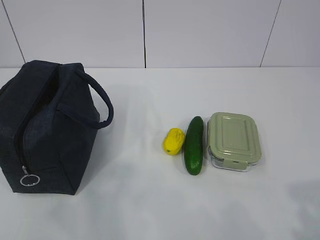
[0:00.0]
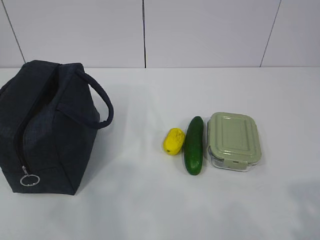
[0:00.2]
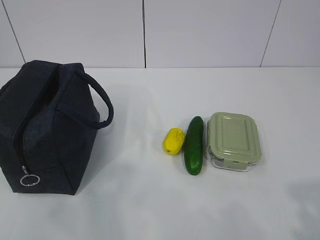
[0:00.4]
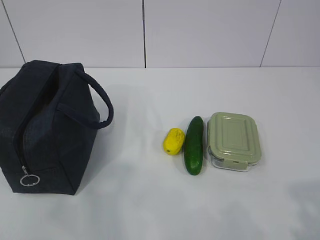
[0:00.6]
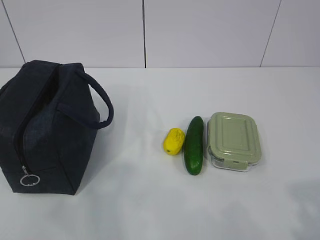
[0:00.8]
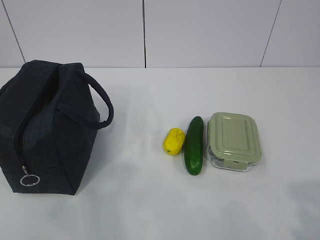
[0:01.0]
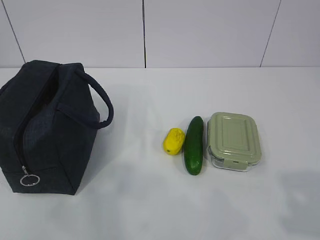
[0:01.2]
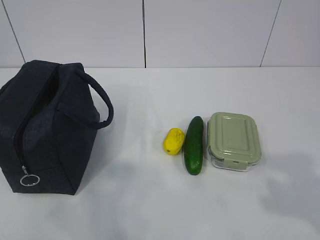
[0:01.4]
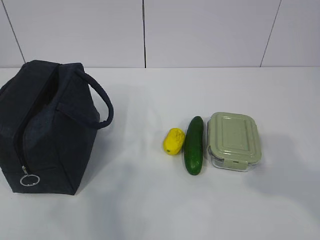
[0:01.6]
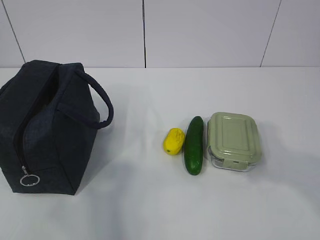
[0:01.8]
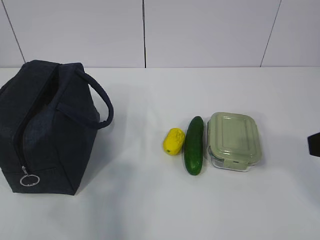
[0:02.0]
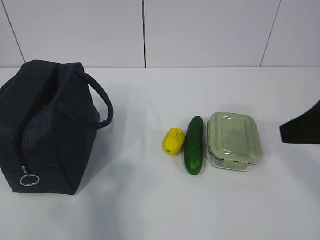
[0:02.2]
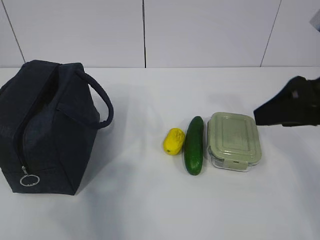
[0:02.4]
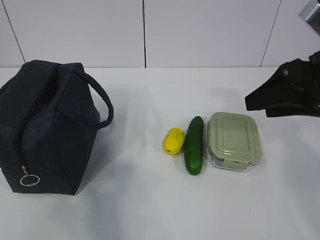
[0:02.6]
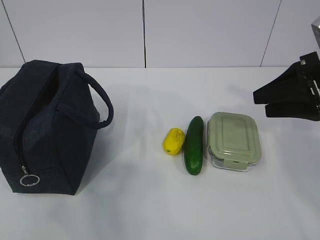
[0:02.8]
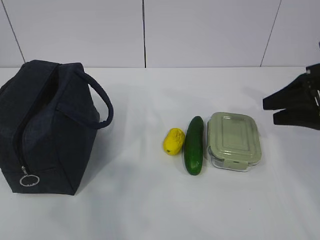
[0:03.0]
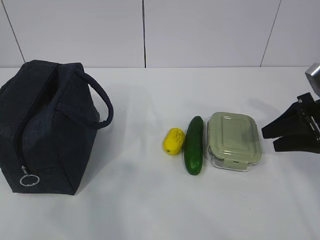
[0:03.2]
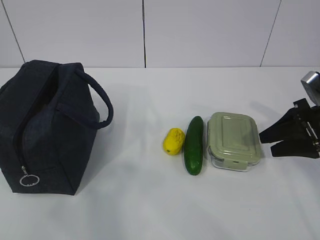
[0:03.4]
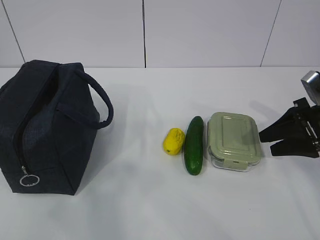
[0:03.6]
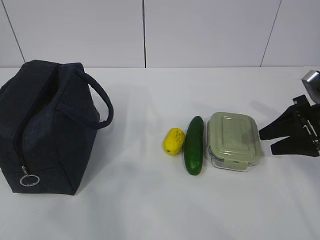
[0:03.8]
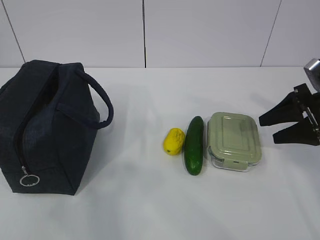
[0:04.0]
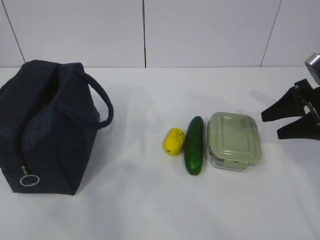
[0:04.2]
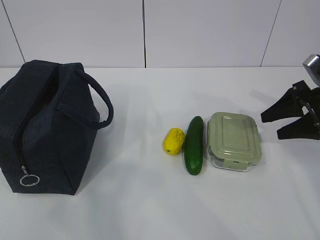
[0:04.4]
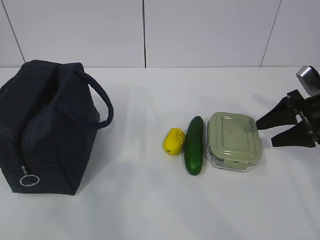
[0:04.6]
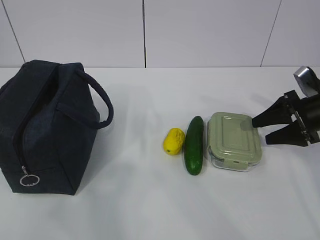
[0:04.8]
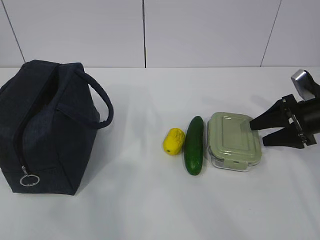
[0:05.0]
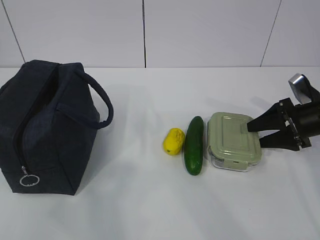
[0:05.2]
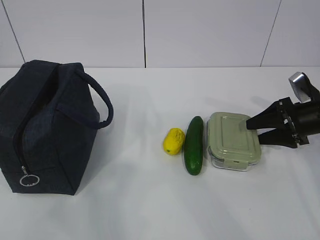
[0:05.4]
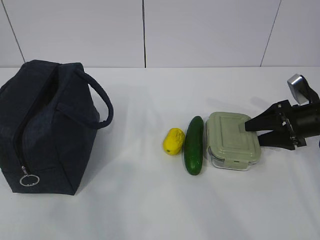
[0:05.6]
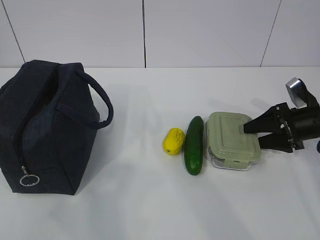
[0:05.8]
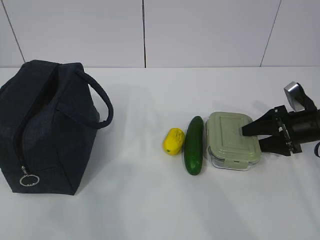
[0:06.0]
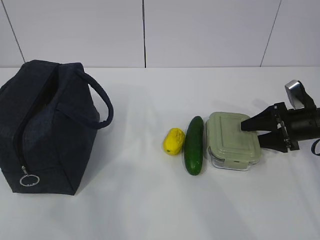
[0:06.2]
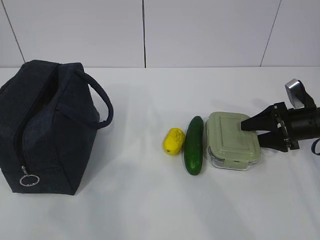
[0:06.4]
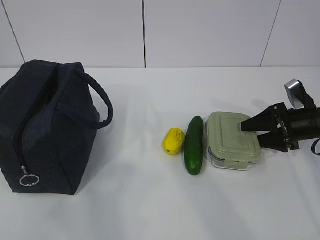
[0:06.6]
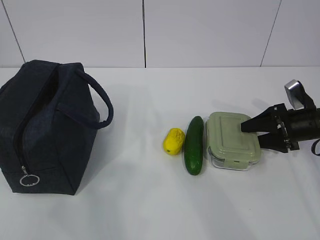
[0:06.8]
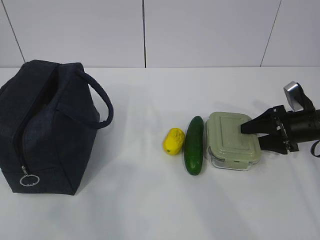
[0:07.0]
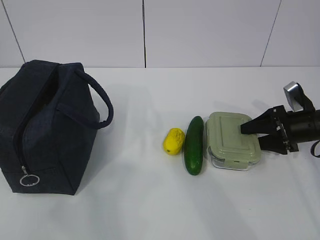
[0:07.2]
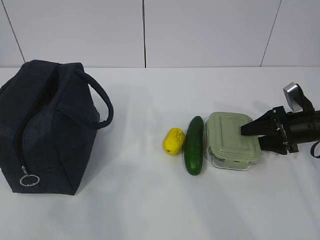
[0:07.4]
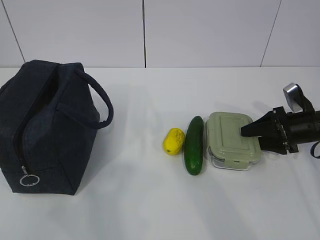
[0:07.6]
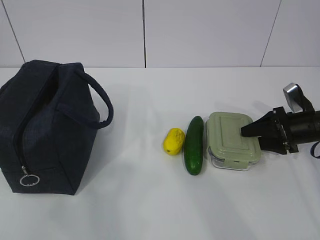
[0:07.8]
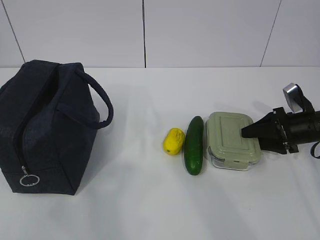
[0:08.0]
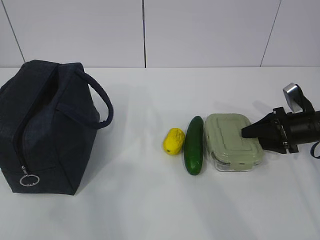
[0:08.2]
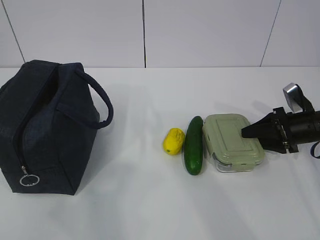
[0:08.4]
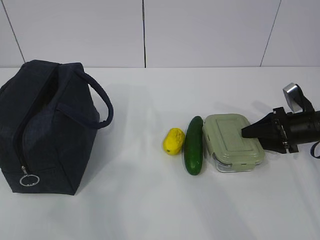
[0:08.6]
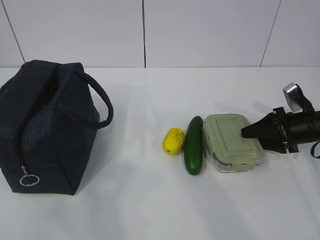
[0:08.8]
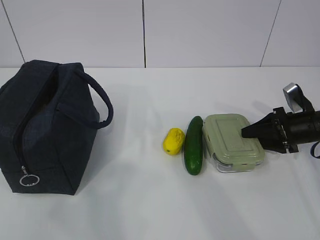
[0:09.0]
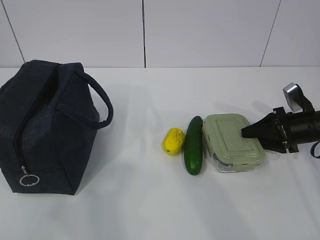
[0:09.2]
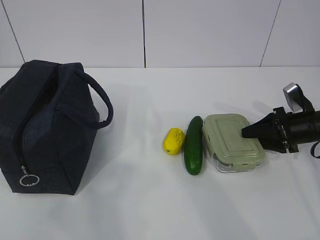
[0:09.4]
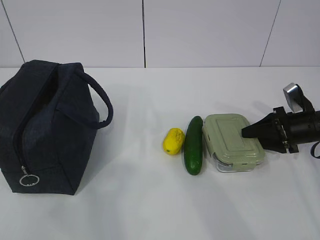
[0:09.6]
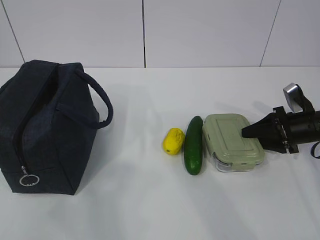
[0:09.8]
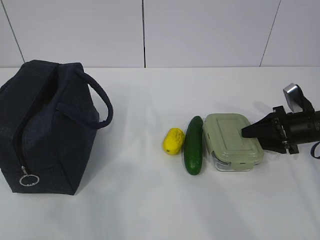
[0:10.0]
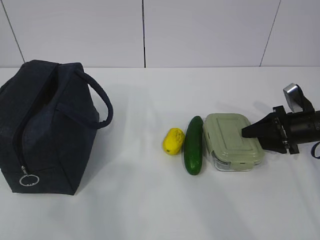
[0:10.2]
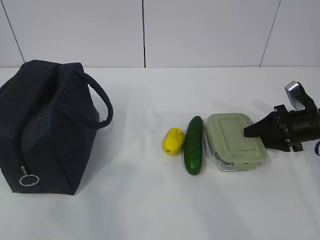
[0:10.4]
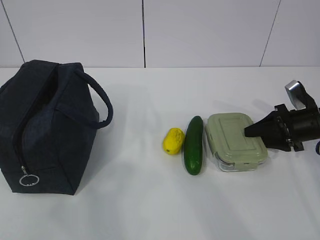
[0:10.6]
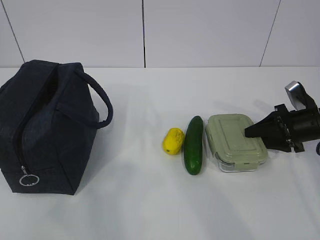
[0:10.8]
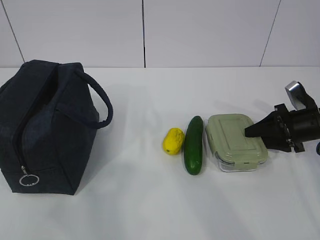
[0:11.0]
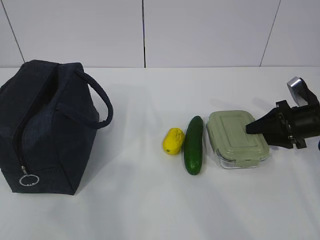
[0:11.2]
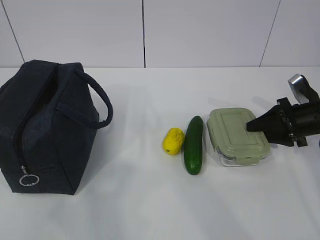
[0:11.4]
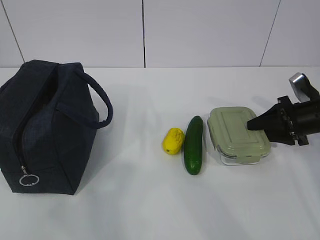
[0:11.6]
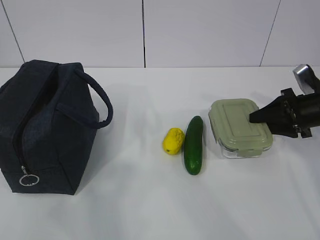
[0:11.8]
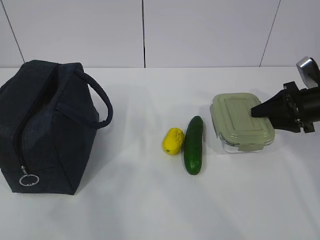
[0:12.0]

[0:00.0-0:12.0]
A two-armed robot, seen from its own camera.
Step, 0:00.0 to 0:09.0: Grab the lunch box with your right hand.
0:01.6 to 0:03.0: The right gripper goes roughly 25 cm forward.
0:03.0 to 0:04.4: The right gripper moves approximately 5 cm.
0:04.4 to 0:06.0: The right gripper is displaced downward by some 10 cm.
0:06.0 to 0:10.4: Both grippers stay about where they are.
0:10.4 to 0:12.0: The right gripper heads upward, covering roughly 5 cm.

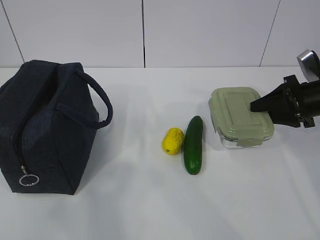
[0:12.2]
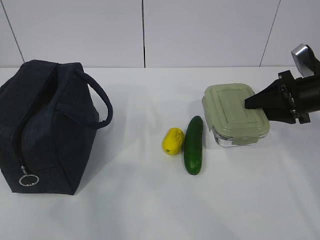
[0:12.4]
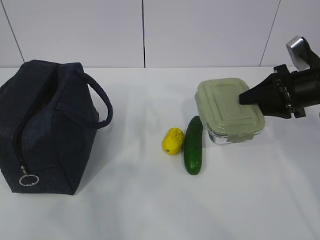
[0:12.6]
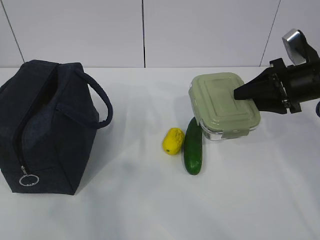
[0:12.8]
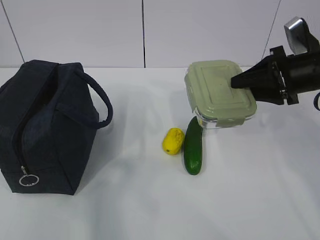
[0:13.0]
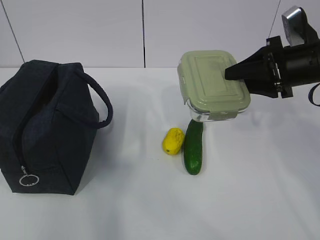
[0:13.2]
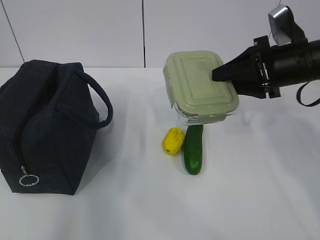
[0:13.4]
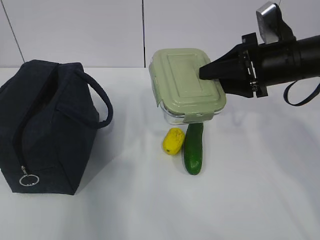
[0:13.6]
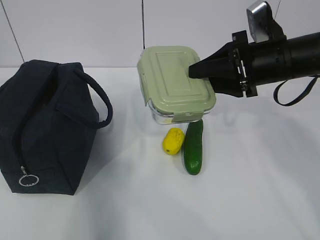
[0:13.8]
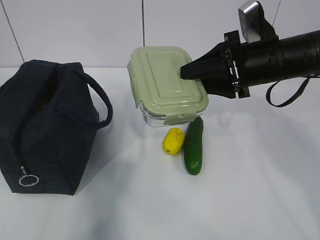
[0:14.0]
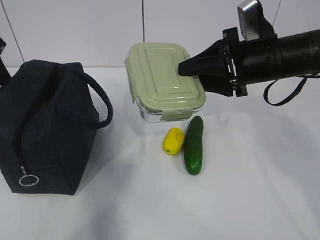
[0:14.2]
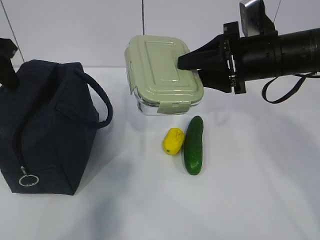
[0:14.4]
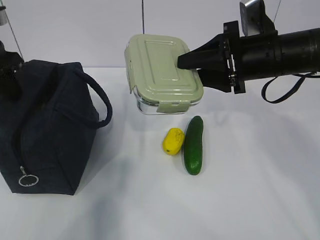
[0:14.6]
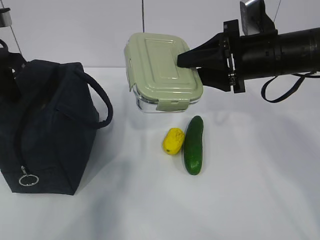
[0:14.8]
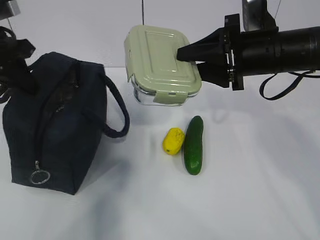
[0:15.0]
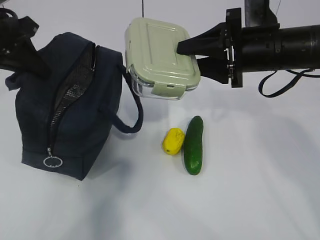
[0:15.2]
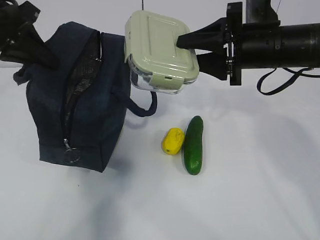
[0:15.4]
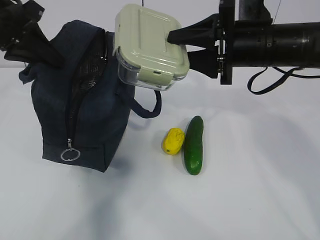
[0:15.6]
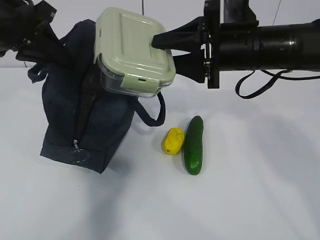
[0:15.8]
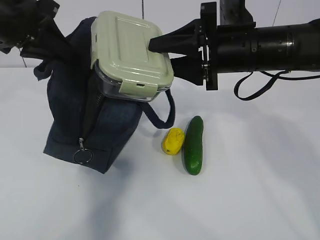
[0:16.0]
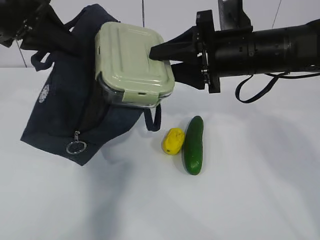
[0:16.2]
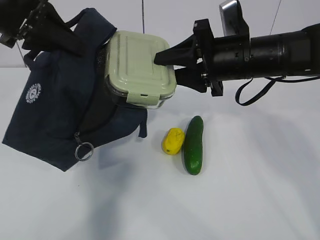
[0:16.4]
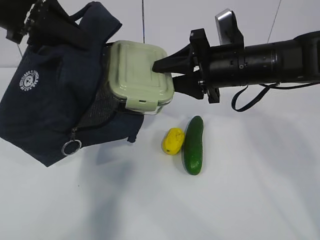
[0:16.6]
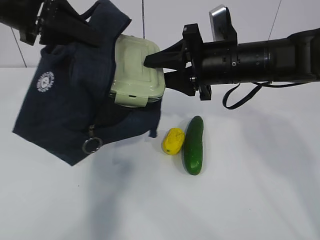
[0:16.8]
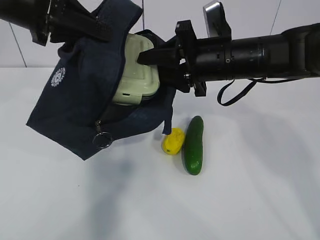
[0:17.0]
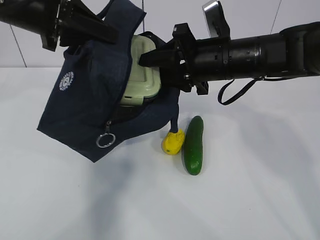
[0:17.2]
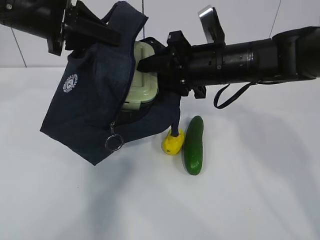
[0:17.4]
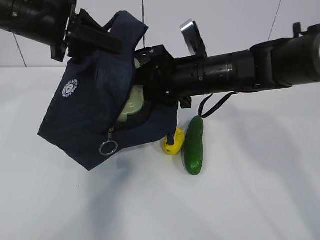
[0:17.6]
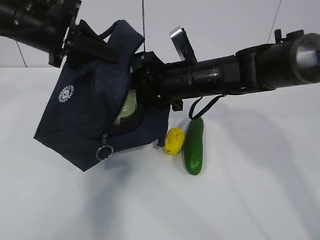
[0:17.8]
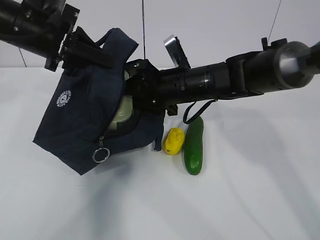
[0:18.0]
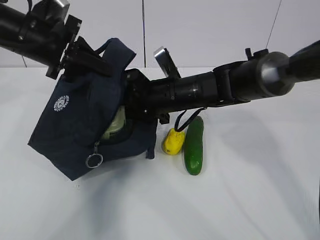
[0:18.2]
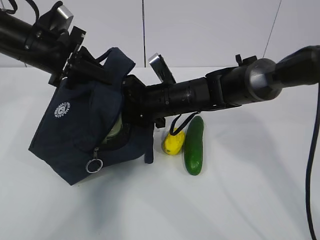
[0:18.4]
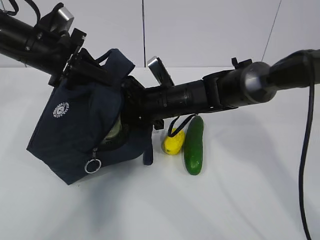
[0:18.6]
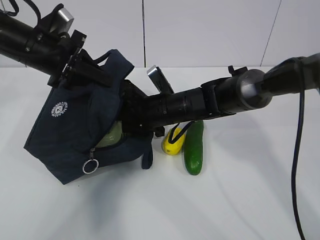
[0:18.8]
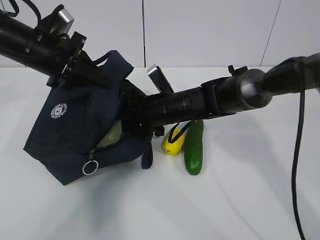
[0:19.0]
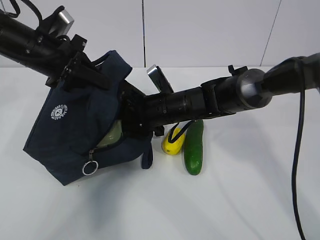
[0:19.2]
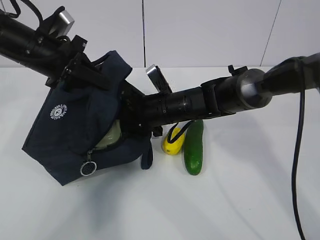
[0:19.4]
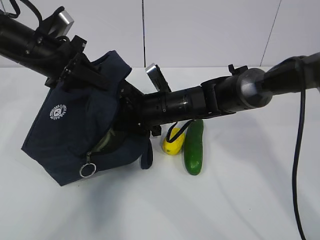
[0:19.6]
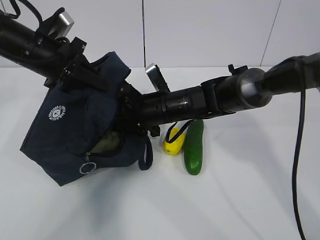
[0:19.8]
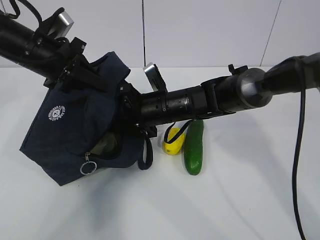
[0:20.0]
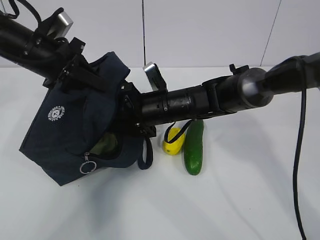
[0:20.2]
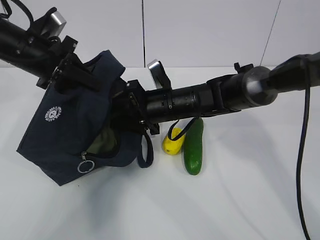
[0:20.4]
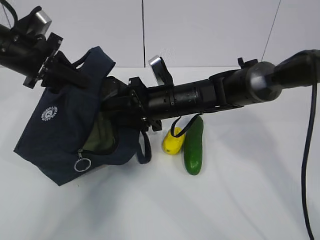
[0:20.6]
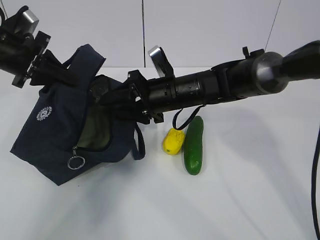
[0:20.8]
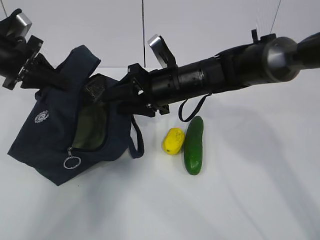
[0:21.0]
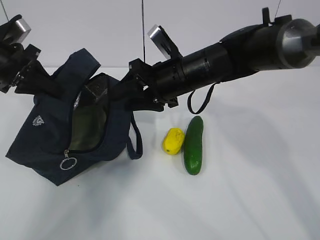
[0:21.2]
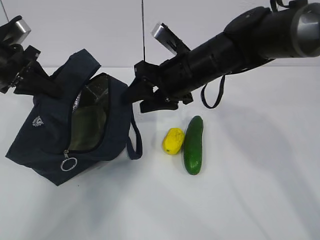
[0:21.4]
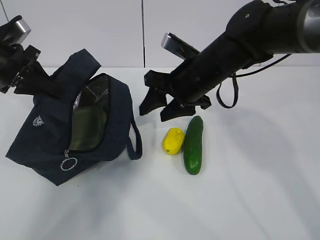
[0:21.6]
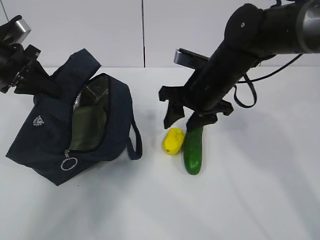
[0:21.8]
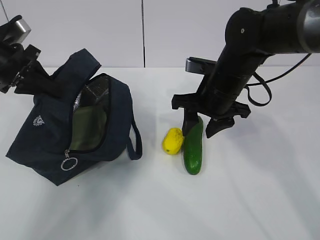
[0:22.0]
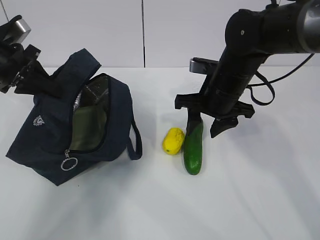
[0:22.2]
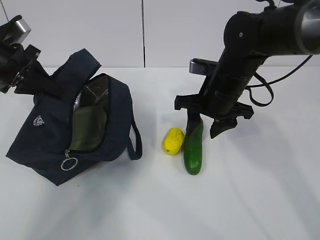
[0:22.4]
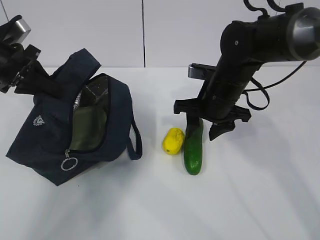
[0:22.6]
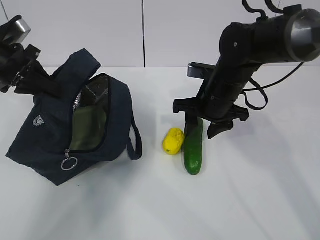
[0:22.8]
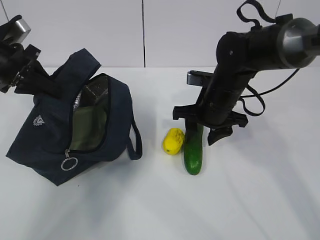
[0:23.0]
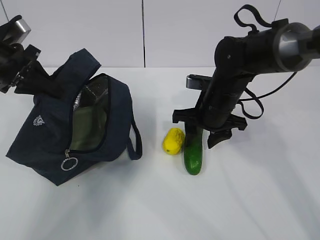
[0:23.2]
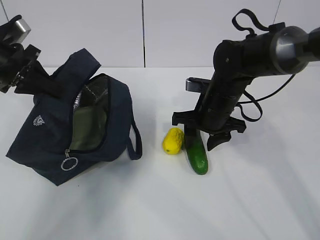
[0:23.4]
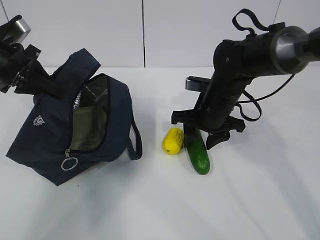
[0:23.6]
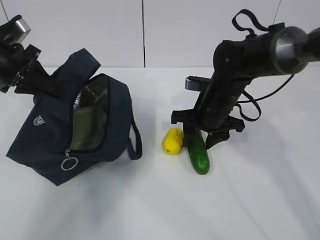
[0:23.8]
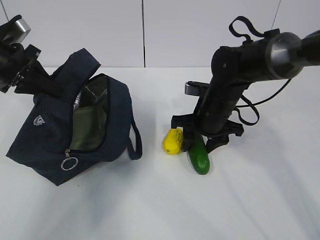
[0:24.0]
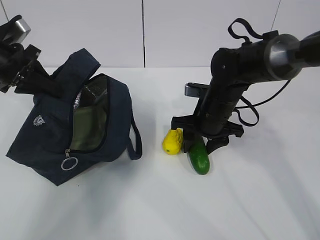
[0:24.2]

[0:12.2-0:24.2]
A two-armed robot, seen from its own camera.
Step, 0:13.4 to 0:16.4: Place it into the bag with your right hand.
Step, 0:16.8 to 0:20.6: Grab the cucumber with your right hand.
Step, 0:20.8 to 0:23.4: Place it into the bag with your right hand.
0:12.2 to 0:13.8: The right gripper heads to the left and upward, covering roughly 15 cm, while the left gripper goes roughly 25 cm forward.
0:13.8 to 0:15.2: The left gripper goes roughly 10 cm forward, and closes.
0:15.2 to 0:16.6: The left gripper changes place by approximately 5 cm.
0:16.6 to 0:18.2: The right gripper travels to the left and downward by about 10 cm. The left gripper is displaced downward and forward by roughly 10 cm.
0:18.2 to 0:19.8: The grippers make only small movements.
0:19.8 to 0:21.2: The right gripper travels upward by approximately 10 cm, while the left gripper travels to the left by about 10 cm.
0:21.2 to 0:22.6: The right gripper travels to the right by roughly 5 cm.
0:22.6 to 0:24.2: The grippers stay close to where they were, moving slightly.
